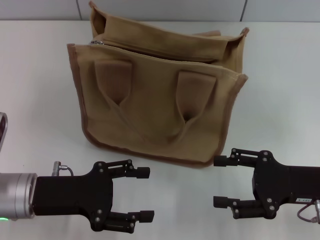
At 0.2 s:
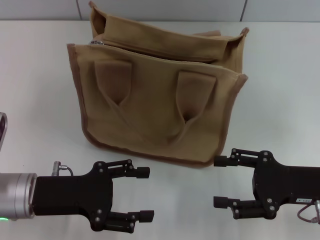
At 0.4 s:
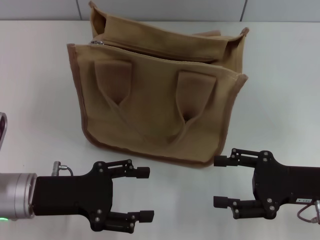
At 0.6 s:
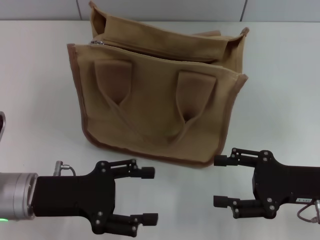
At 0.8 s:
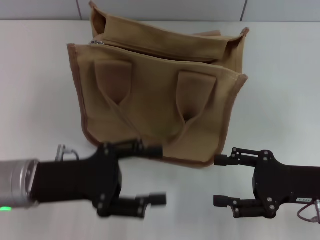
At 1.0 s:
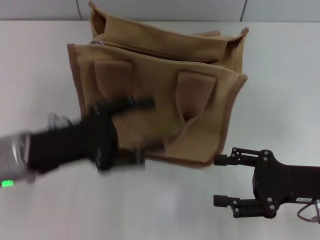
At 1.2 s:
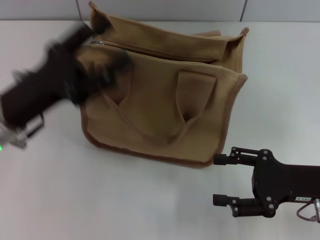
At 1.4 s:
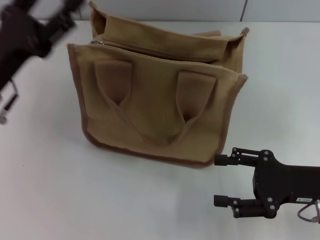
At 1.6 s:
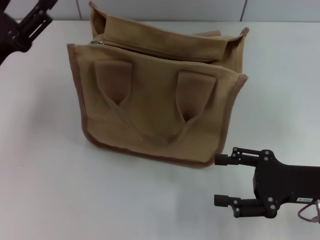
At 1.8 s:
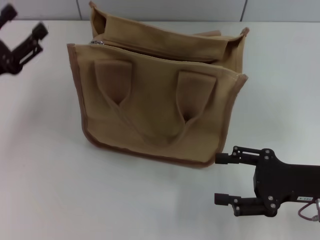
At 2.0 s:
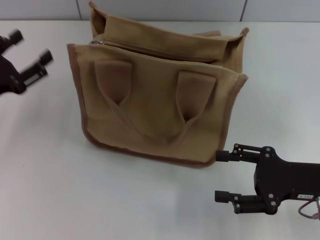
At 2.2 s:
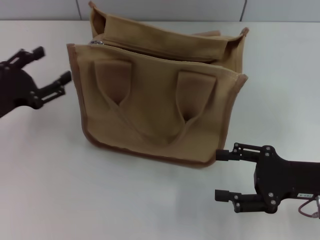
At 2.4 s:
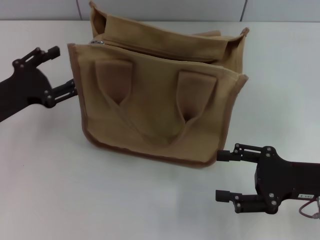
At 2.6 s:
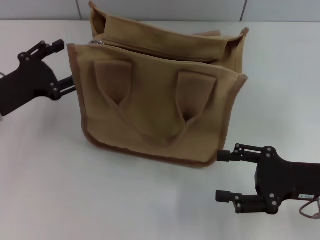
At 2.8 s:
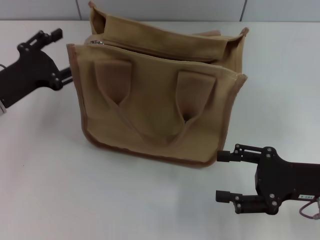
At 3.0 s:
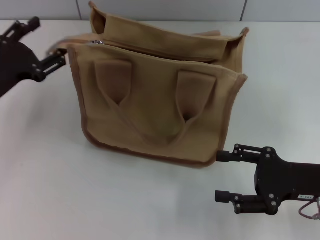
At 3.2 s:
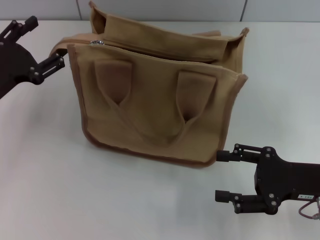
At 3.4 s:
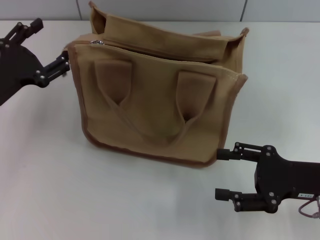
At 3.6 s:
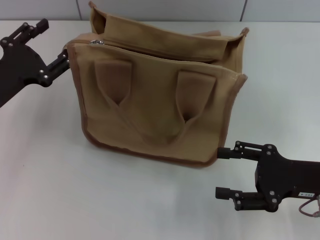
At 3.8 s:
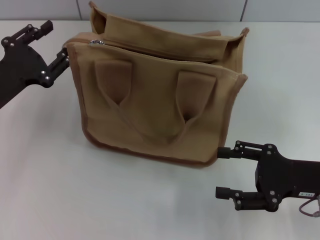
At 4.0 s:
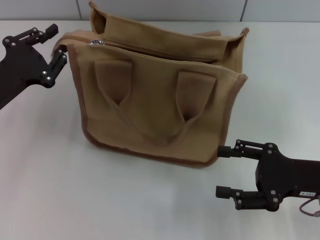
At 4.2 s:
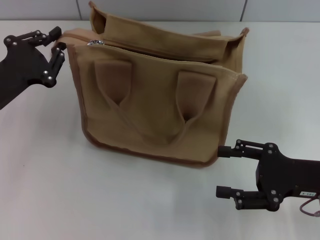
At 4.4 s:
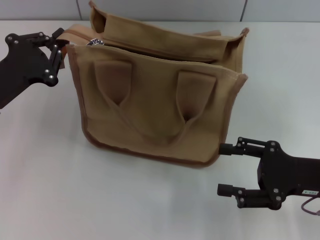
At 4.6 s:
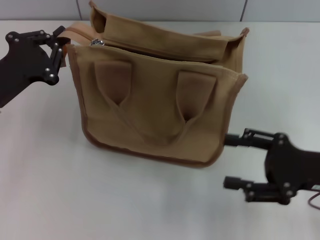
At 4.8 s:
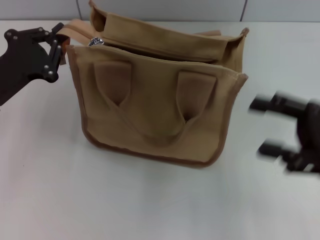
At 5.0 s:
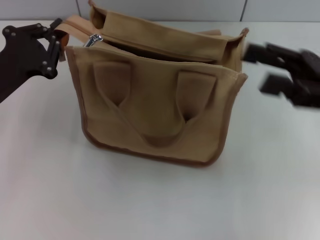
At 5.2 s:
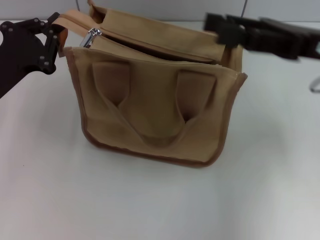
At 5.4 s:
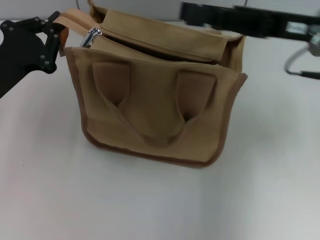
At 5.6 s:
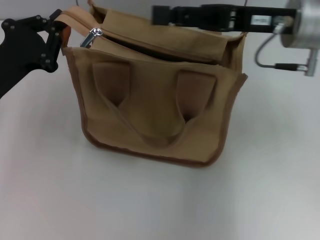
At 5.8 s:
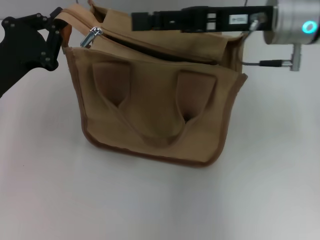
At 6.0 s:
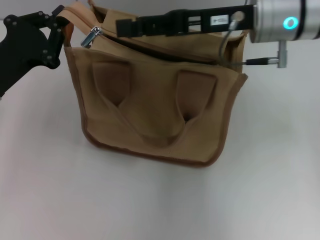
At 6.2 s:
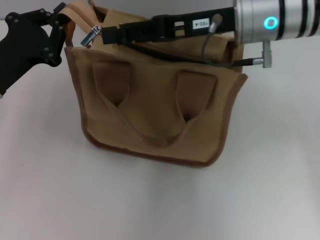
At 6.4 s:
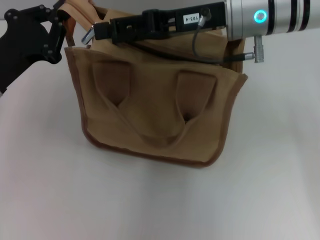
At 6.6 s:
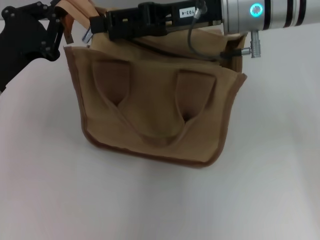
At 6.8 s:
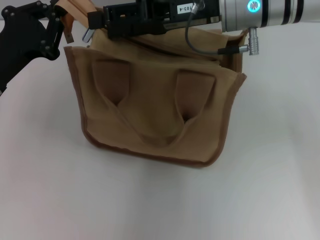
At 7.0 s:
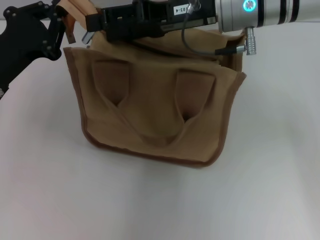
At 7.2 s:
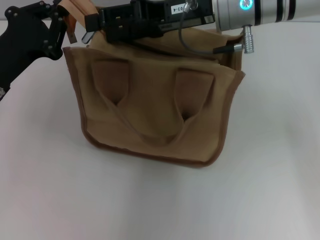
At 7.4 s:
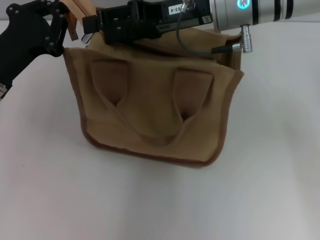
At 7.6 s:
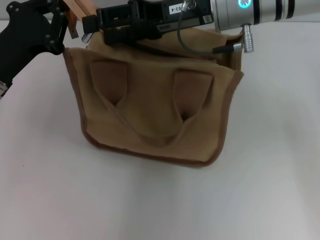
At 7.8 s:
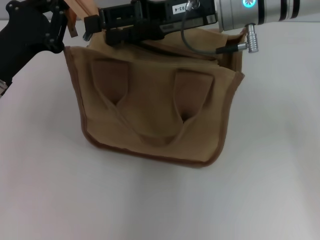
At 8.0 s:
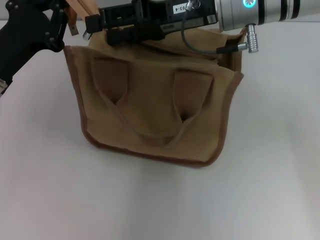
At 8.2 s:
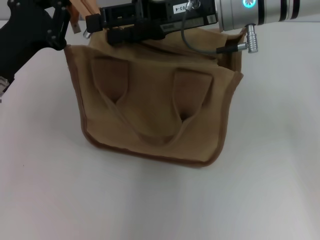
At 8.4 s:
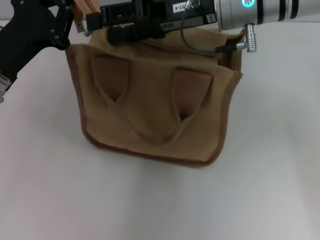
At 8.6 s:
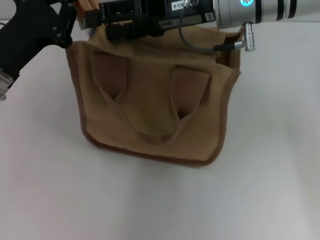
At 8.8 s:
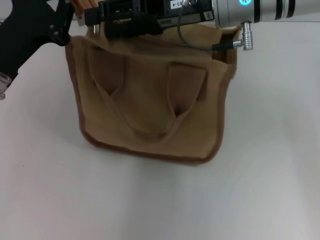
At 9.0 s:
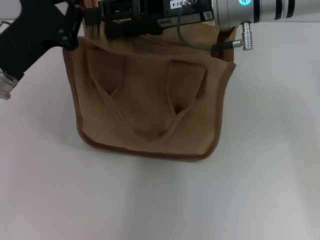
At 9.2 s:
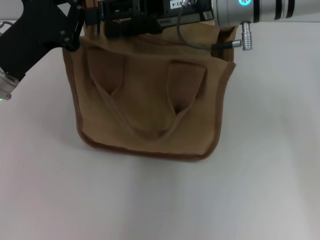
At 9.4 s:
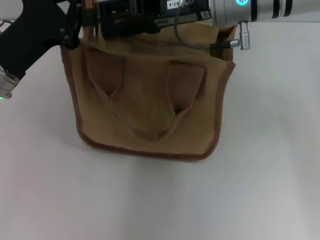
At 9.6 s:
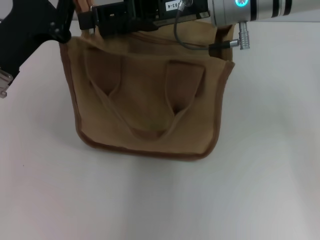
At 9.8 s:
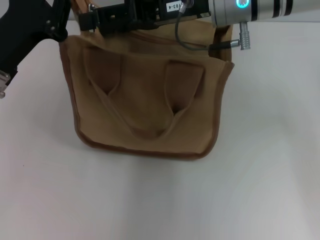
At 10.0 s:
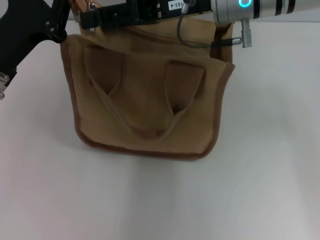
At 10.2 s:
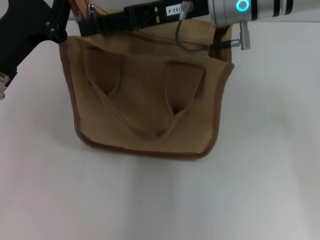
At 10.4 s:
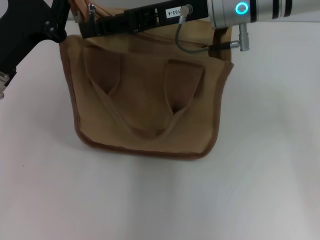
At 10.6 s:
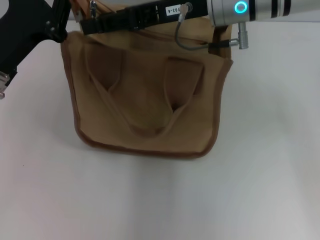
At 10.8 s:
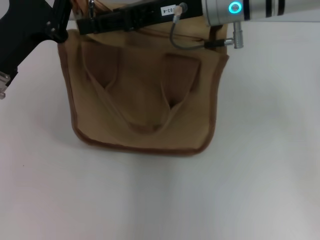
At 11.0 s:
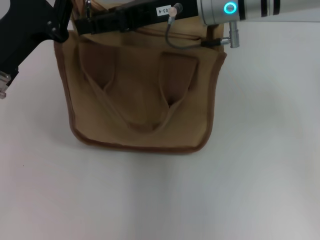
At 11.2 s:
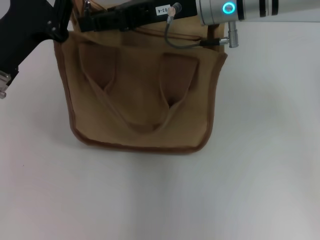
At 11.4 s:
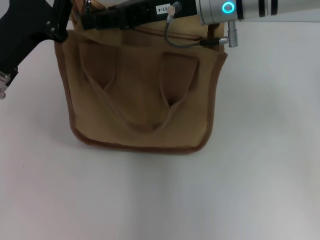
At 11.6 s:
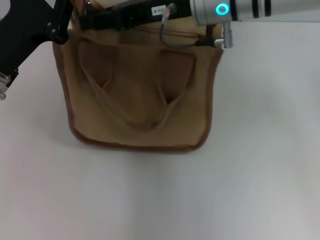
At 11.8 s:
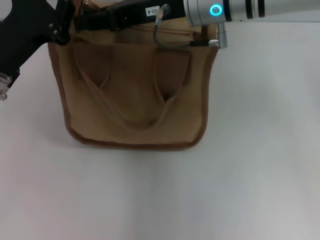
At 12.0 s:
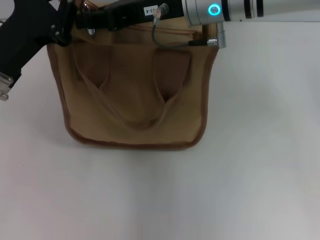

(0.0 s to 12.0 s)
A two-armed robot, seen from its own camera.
0.0 s - 1.6 s: The left gripper goes some 10 cm forward and upward.
3.0 s - 4.4 s: The left gripper closes.
4.4 s - 6.0 s: The right gripper shifts roughly 25 cm forward, upward and to the left.
6.0 s - 9.0 s: There are only small adjustments of the grippers.
10.4 s - 12.0 s: The right gripper closes.

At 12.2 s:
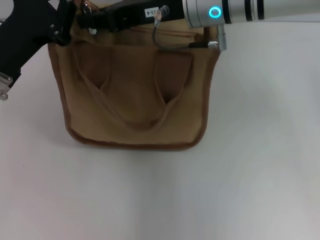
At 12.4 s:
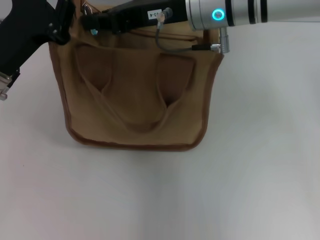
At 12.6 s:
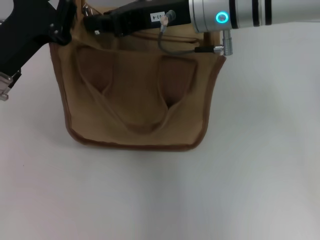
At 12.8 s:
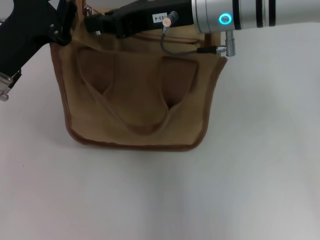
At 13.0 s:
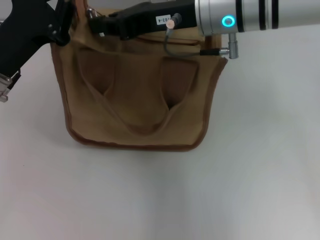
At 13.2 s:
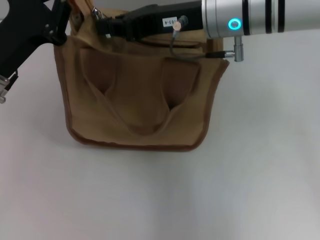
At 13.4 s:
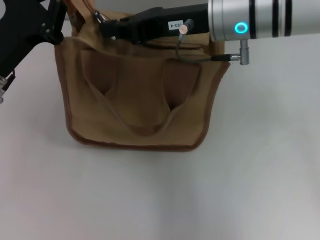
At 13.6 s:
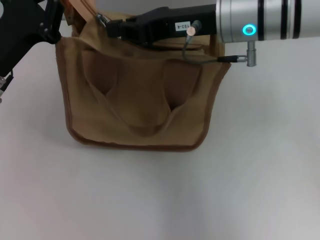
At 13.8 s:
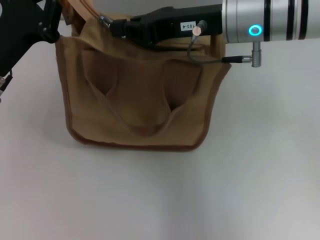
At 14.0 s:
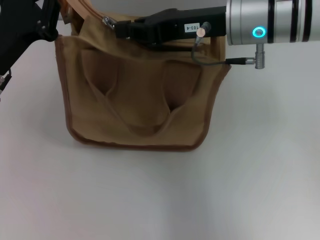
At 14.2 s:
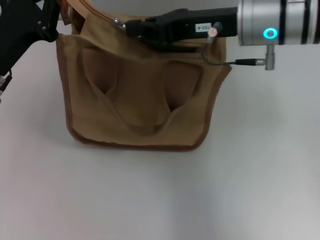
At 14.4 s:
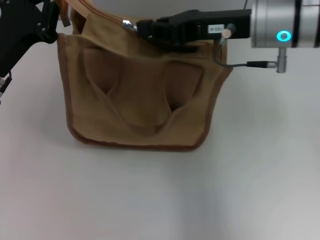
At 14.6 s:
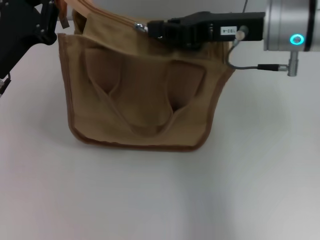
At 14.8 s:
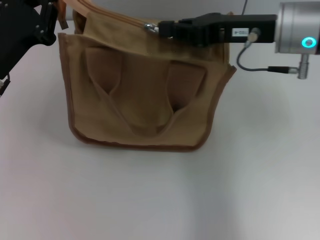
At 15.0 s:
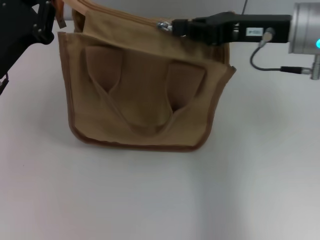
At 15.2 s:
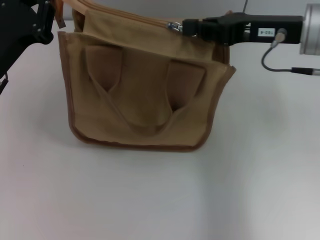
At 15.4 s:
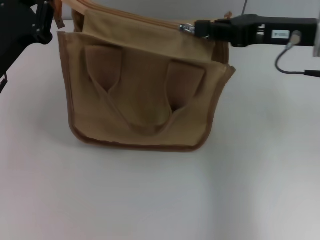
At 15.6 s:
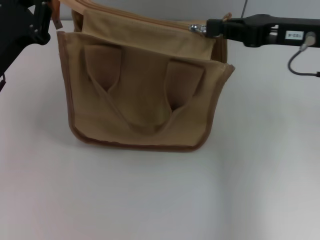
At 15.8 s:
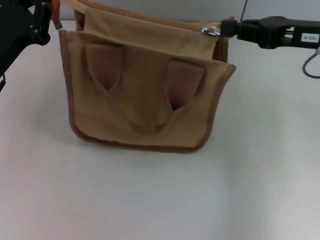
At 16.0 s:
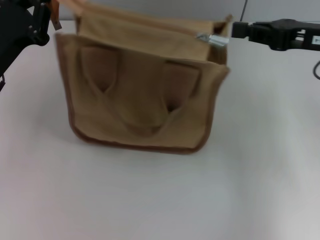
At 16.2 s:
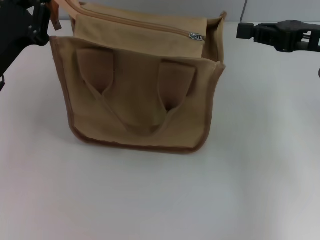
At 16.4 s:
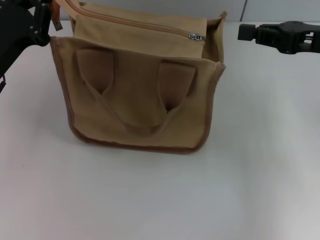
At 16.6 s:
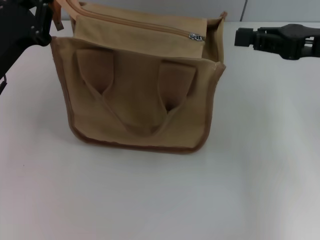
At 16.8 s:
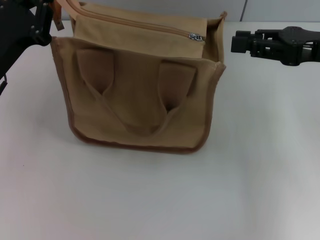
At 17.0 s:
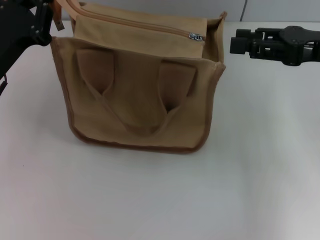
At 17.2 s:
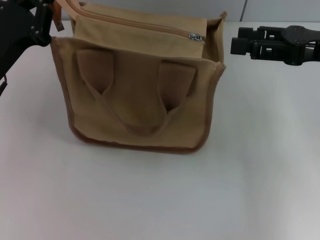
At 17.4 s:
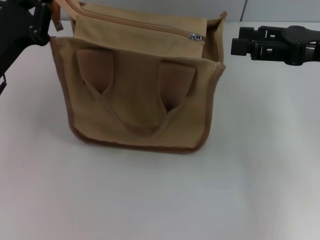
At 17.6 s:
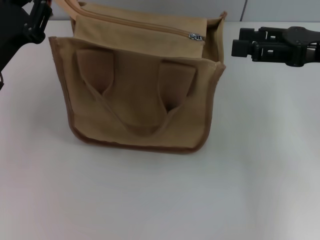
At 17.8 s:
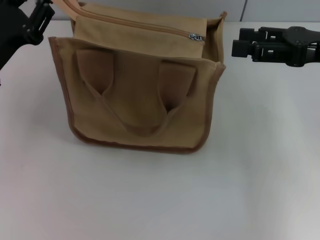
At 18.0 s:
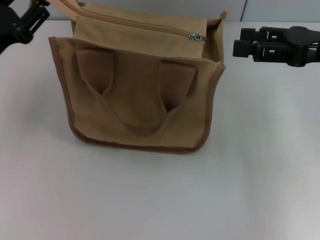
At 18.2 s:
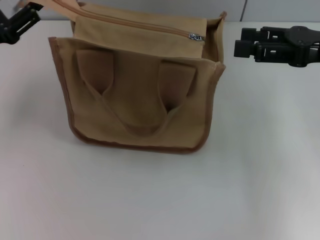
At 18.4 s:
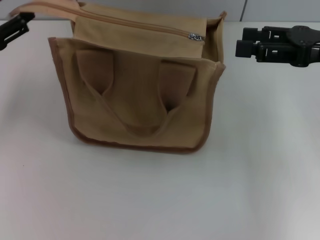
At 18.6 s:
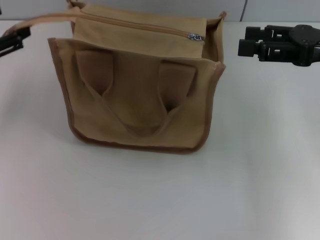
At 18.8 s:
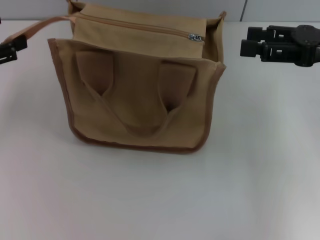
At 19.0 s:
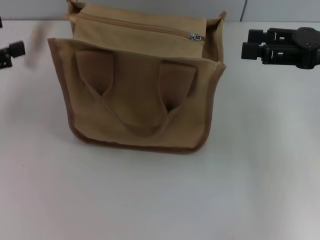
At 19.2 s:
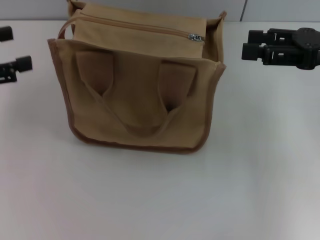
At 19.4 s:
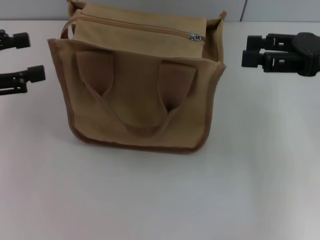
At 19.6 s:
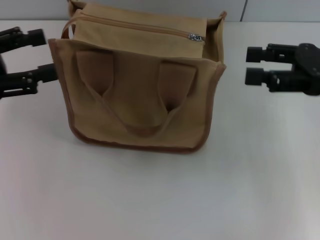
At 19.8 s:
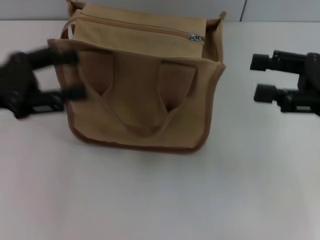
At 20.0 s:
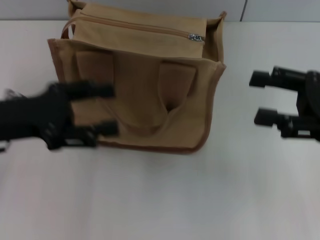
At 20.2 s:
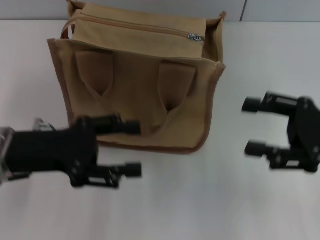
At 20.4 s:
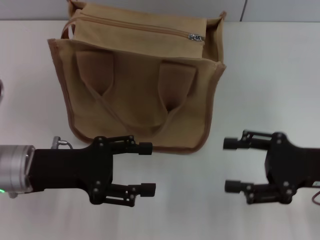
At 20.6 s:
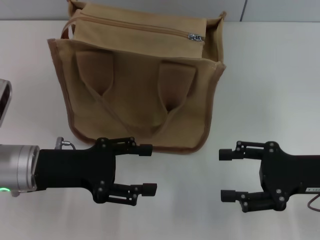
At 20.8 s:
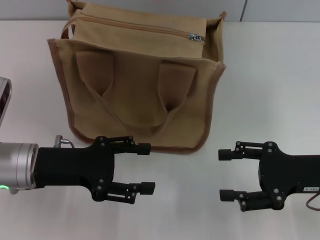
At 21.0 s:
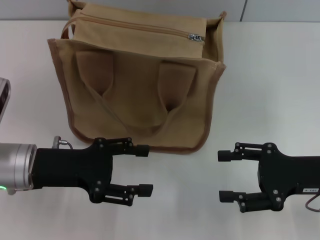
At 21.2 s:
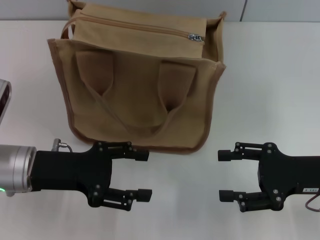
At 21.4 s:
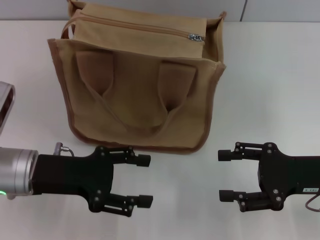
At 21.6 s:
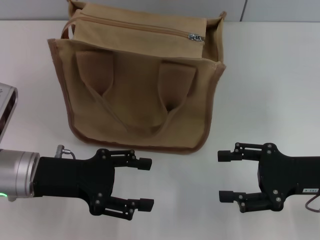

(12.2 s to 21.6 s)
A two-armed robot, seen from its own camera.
Step, 12.2 s - 15.8 s: Pull up the zipper with your right hand.
Step, 16.2 s - 19.0 s: Grab the zipper with your left hand.
12.2 s - 13.8 s: The grippers make only small movements.
13.8 s - 15.4 s: The right gripper heads to the right, covering approximately 10 cm.
15.4 s - 17.0 s: The right gripper is displaced to the right by about 5 cm, and opens.
17.0 s - 18.4 s: The right gripper opens. Meanwhile the left gripper moves to the left, approximately 5 cm, and opens its fingers.
18.4 s - 20.0 s: The right gripper is displaced downward and backward by approximately 10 cm. The left gripper changes place by roughly 5 cm.
20.0 s - 21.6 s: The right gripper heads downward, covering some 5 cm, while the left gripper shifts approximately 10 cm downward and to the right.

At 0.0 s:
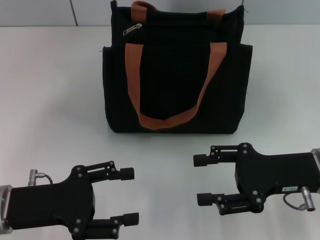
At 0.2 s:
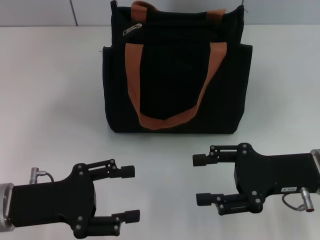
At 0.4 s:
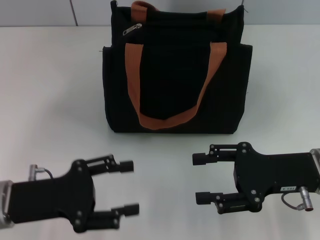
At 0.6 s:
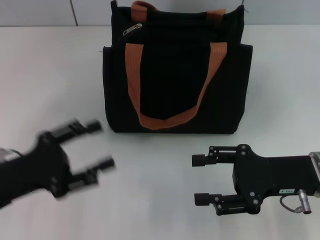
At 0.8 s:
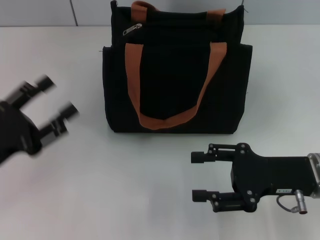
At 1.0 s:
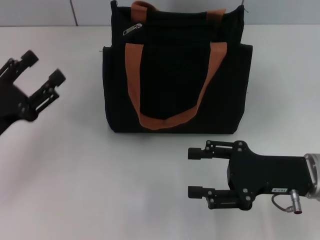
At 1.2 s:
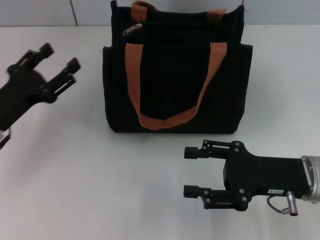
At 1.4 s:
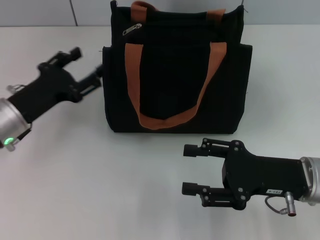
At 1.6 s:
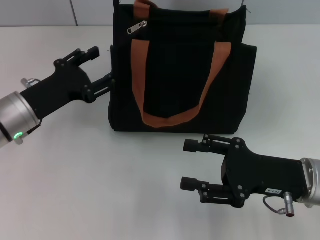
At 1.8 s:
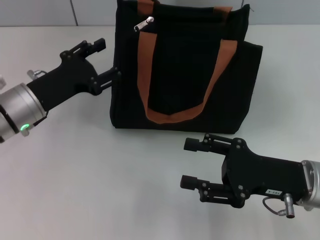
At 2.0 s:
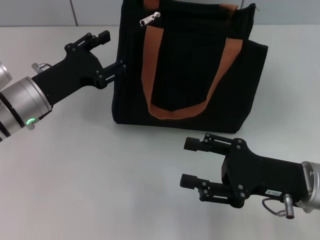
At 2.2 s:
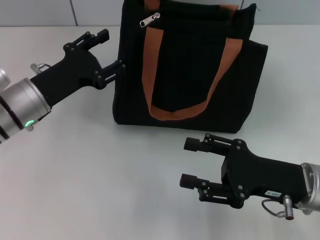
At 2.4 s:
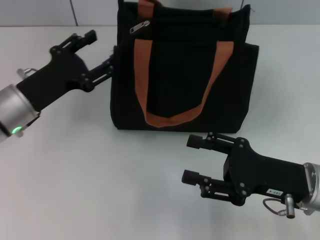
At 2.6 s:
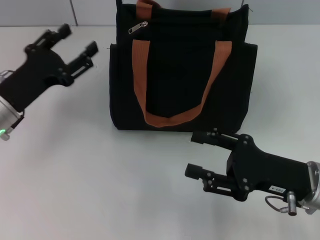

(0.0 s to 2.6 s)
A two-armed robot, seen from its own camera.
0.0 s - 1.2 s: The left gripper shifts approximately 10 cm forward.
